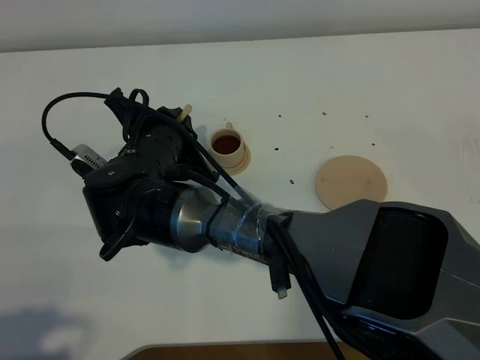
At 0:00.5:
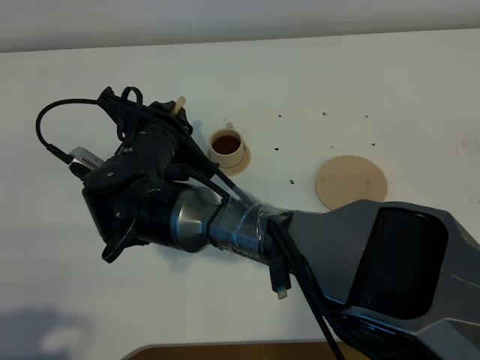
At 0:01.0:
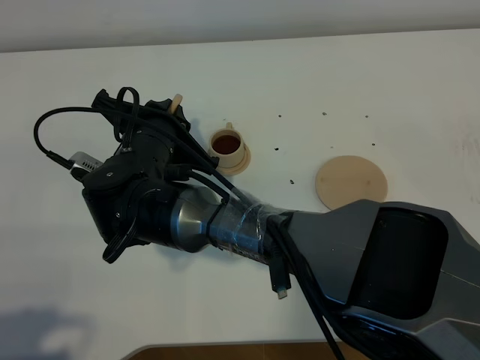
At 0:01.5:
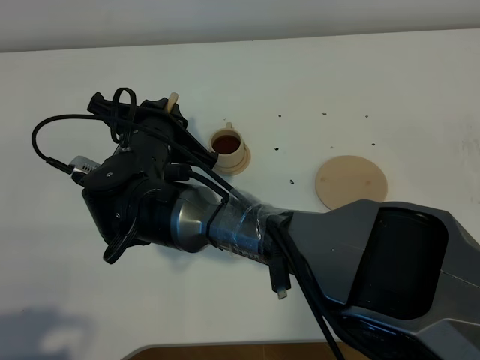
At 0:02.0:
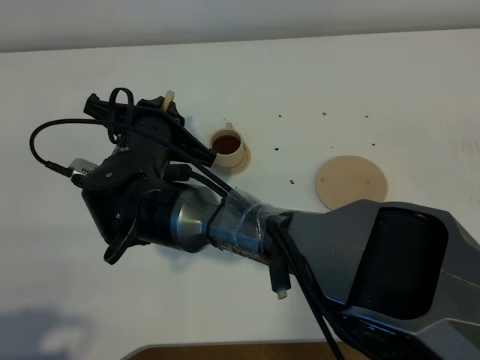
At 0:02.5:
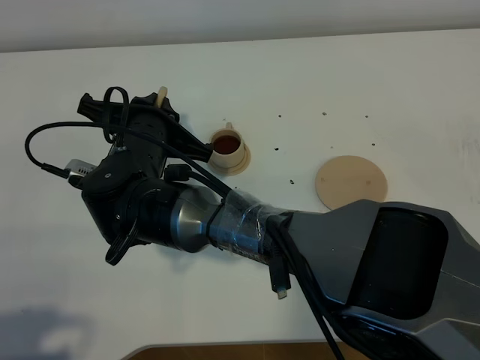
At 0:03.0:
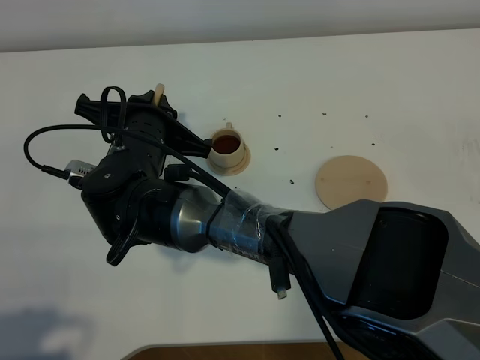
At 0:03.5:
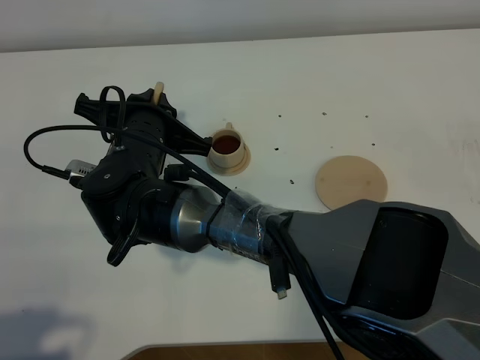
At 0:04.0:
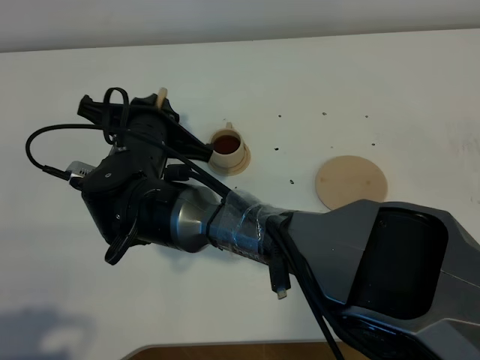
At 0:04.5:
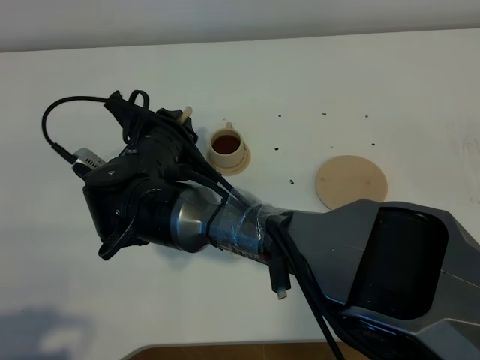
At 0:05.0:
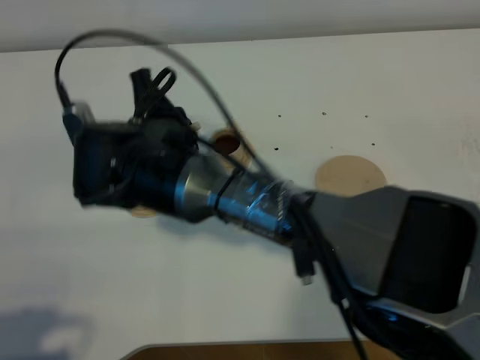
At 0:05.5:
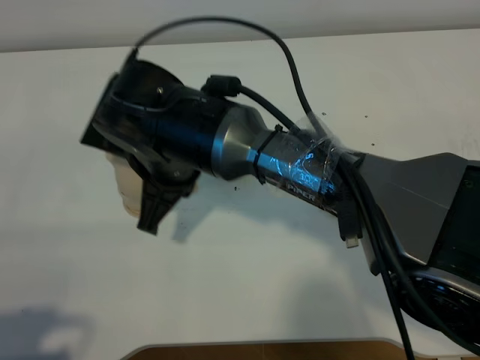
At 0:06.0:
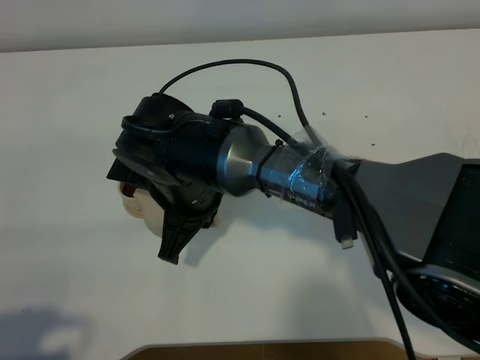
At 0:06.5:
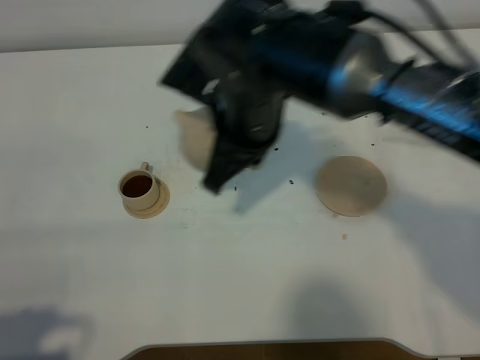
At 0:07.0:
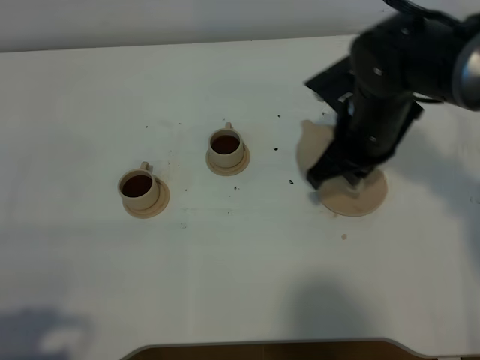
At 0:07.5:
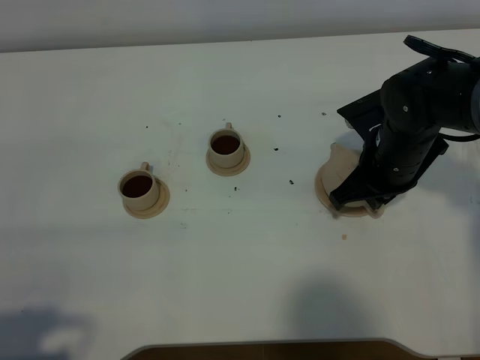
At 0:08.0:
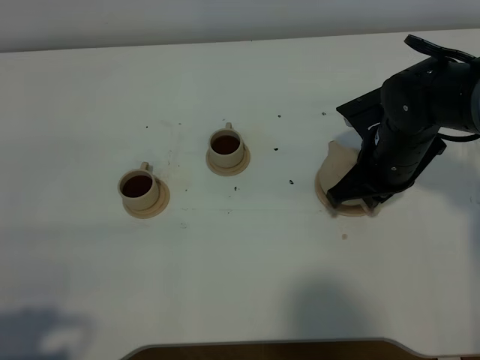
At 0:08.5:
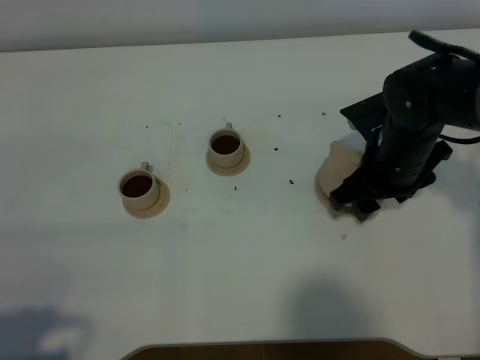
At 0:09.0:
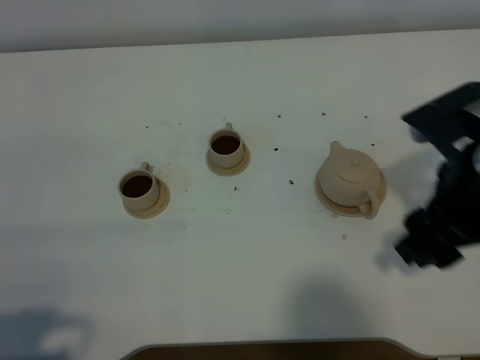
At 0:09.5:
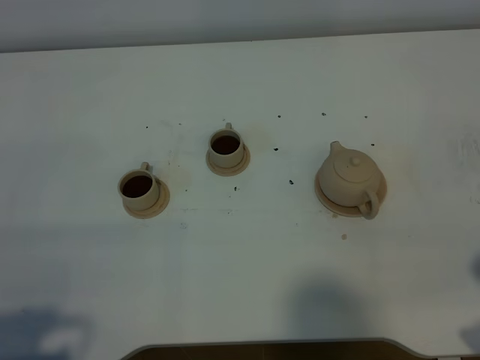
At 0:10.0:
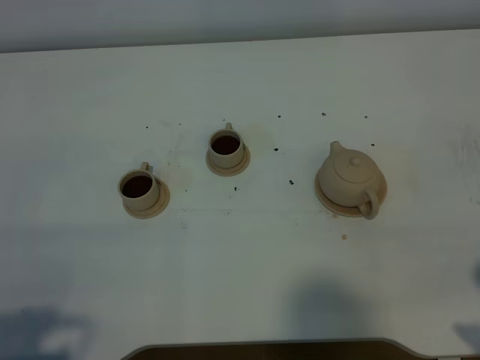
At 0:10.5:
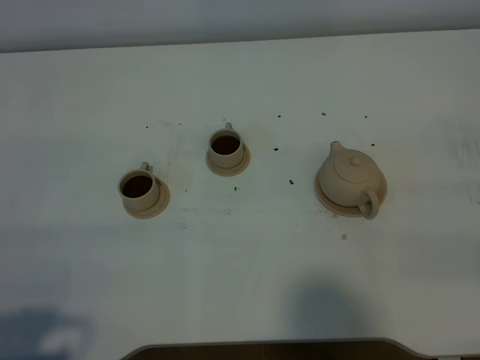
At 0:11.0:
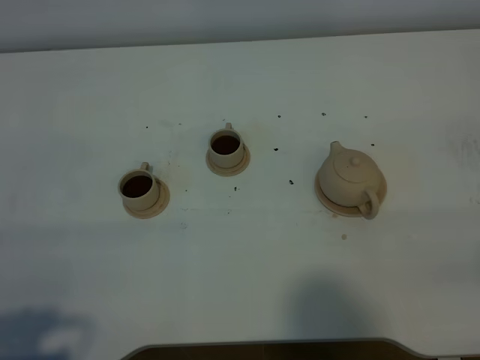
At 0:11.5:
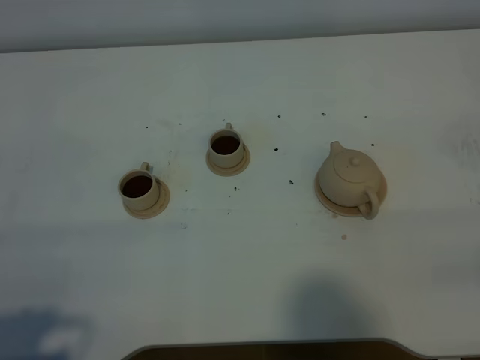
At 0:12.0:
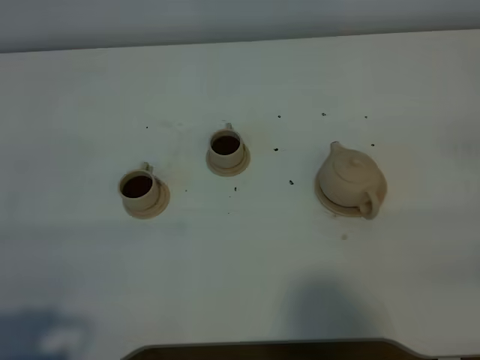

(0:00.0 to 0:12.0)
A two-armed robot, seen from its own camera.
Task of the whole recording: grasp the brown teapot and pour the tea into the two brown teacups one by one, put the brown teapot back in its original place.
Step, 0:00.0 - 0:05.0: Pour tea into the teacup with the right gripper.
0:00.0 - 0:02.0: The grippers make only small movements.
0:02.0 - 0:04.0: There are only small adjustments of the grippers.
0:04.0 - 0:06.0: The right gripper ends up some 5 cm from where it was.
0:06.0 - 0:08.0: The right gripper is displaced to the right by approximately 25 cm.
0:08.0 - 0:10.0: The right gripper shifts about 25 cm backward, and opens up.
